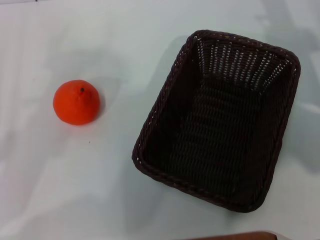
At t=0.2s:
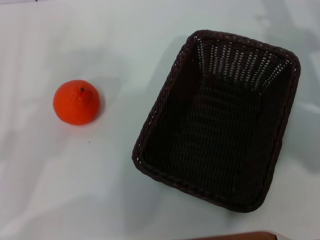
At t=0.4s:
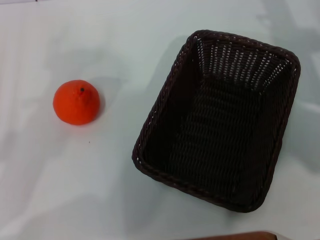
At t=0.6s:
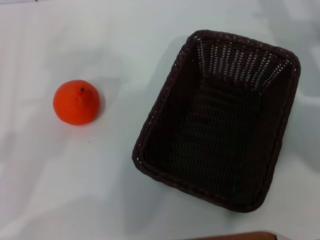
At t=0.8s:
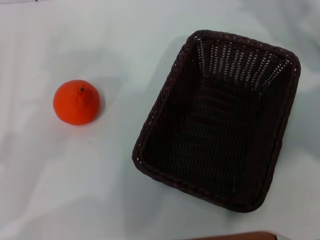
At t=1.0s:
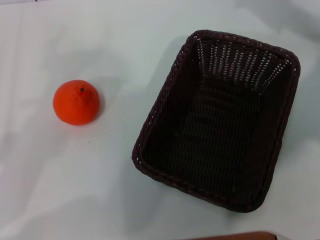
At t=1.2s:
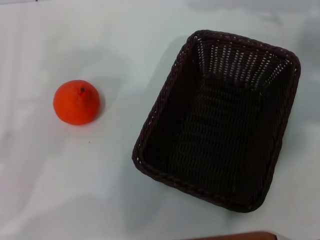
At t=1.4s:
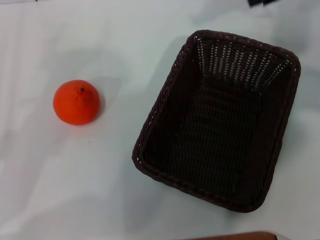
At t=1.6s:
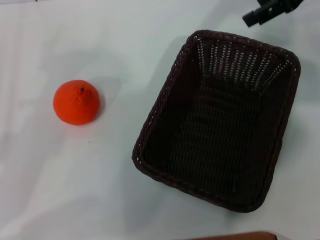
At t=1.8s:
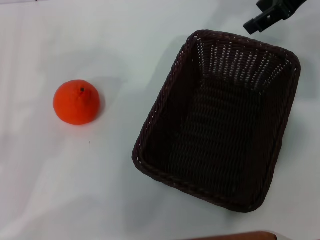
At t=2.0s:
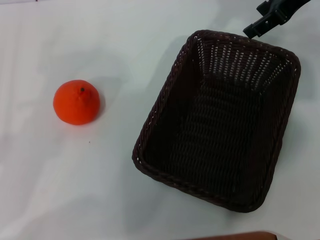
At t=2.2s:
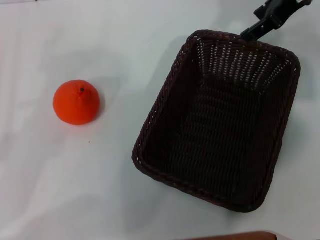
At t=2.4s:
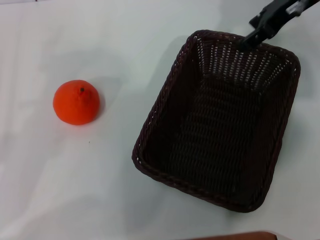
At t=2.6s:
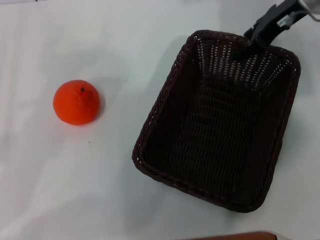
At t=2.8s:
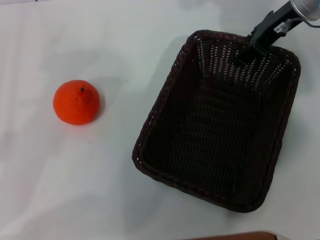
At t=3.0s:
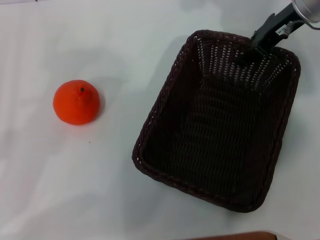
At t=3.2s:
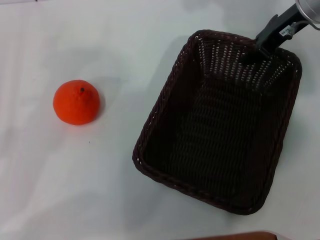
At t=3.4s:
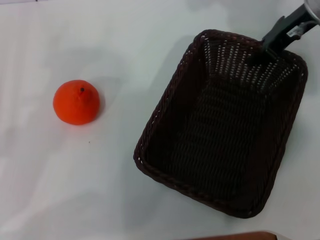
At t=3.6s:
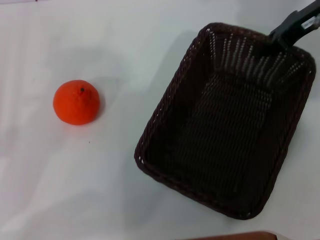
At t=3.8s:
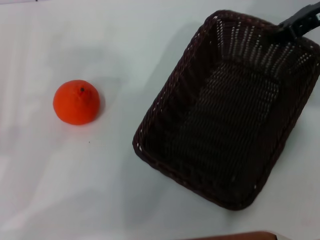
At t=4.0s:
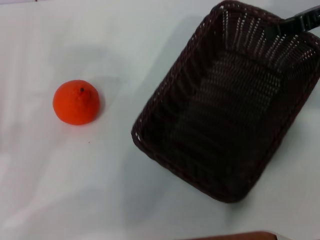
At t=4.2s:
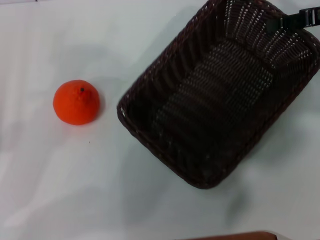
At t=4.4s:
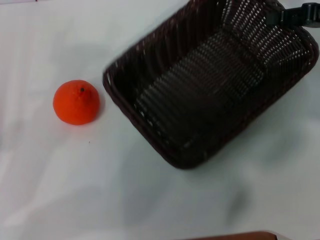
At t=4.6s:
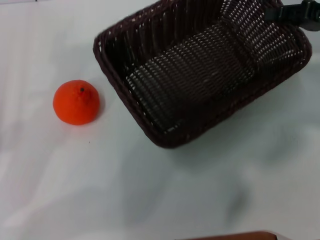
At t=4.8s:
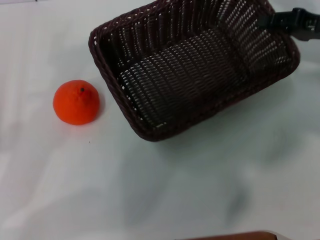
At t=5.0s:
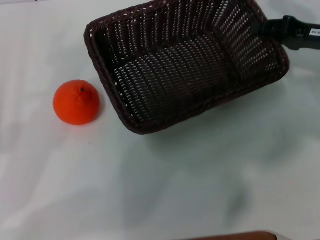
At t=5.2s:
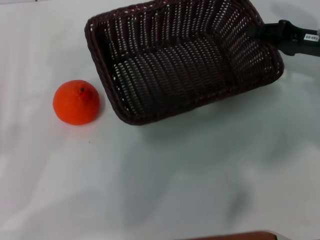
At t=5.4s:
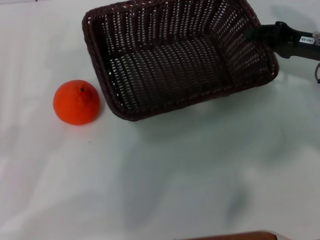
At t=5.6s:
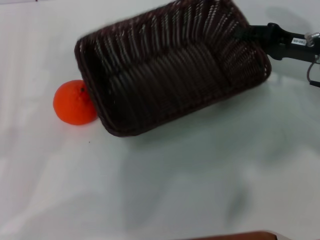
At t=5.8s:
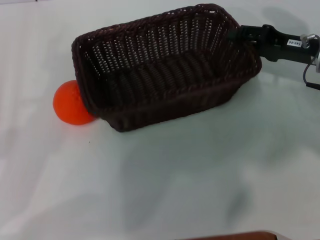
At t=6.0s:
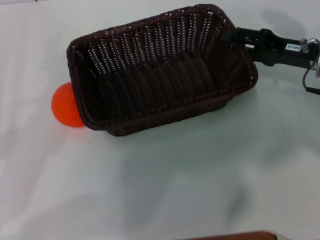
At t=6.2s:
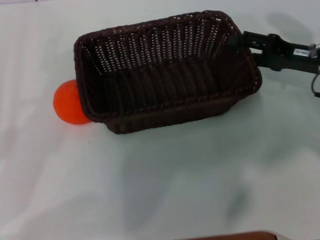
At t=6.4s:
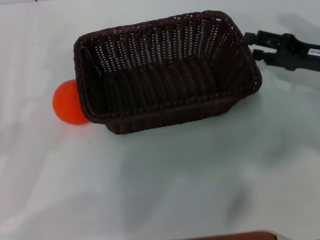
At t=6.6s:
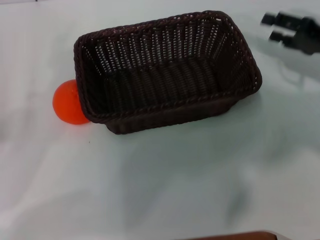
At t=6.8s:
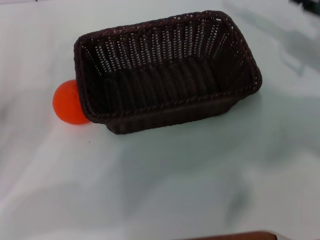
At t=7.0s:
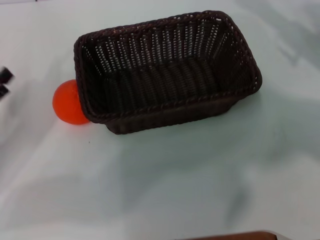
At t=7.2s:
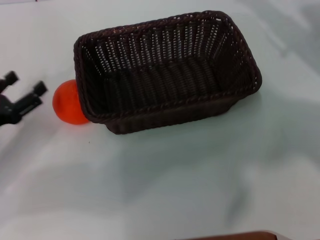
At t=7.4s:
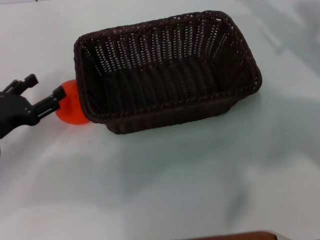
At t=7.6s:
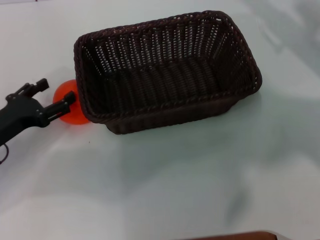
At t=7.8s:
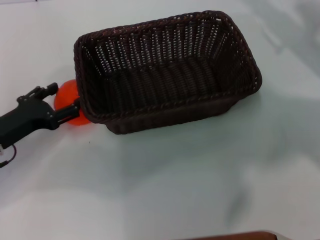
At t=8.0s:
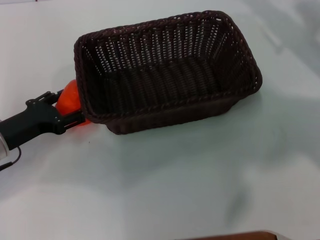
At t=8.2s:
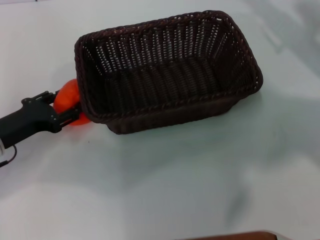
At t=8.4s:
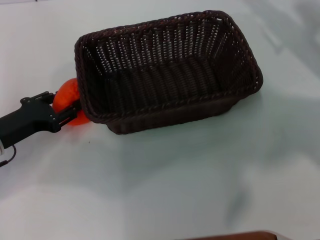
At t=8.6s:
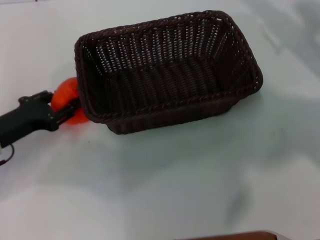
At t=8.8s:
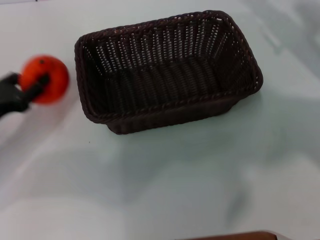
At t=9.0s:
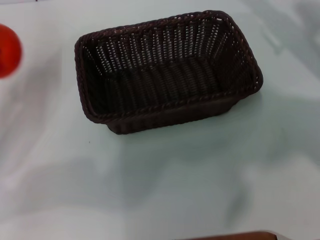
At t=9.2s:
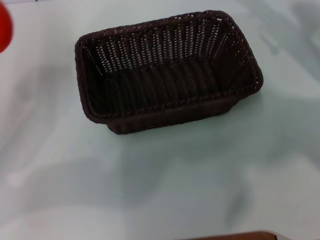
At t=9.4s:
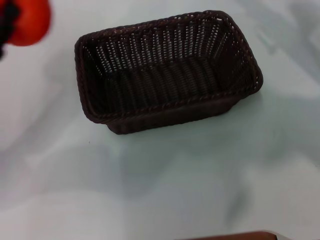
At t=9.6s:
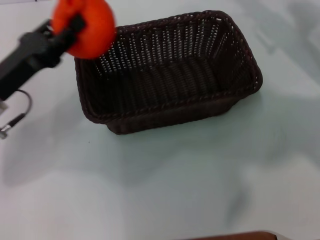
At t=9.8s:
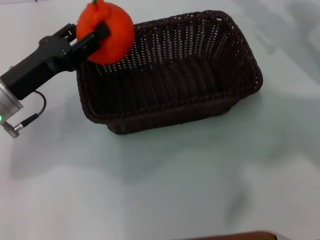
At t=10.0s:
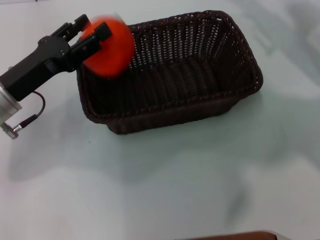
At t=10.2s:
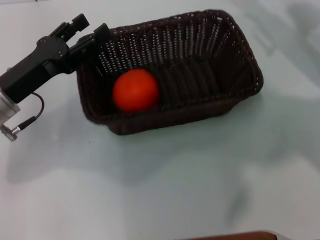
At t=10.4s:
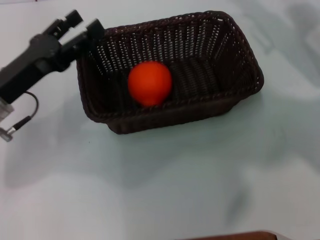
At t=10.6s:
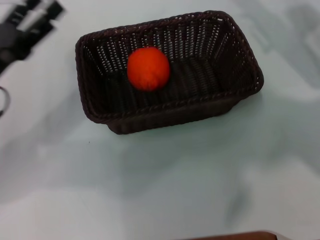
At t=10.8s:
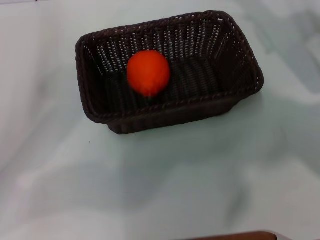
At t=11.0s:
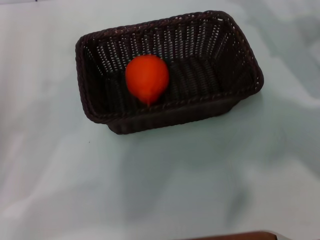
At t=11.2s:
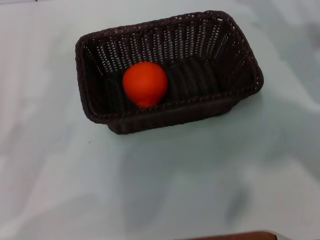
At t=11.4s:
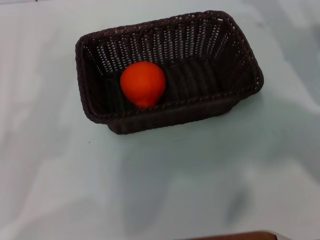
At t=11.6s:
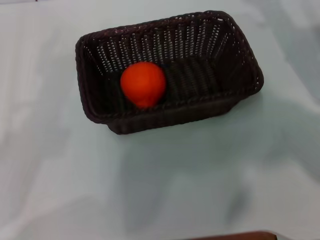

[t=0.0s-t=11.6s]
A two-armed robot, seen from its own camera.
Task of the whole recording: the right gripper pick up the black basket and place it horizontally in the middle of the table, the left gripper pick up the orange and place it into the black basket.
Step, t=0.0s to t=4.0s: Pick up the dark basket with the right gripper.
Step, t=4.4s to t=6.4s: Place the dark basket in the center of view with the right gripper.
Step, t=6.8s to t=8.8s: Pick up the orange with the left gripper.
Step, t=9.0s to t=10.0s: Place the orange into the dark basket with the left gripper.
t=0.0s to t=1.4s: The right gripper goes approximately 15 cm upward.
t=1.4s to t=2.8s: The right gripper goes about 10 cm downward and to the left.
t=2.8s to t=4.4s: The right gripper goes roughly 15 cm to the right and backward, and closes its fingers.
t=4.4s to t=5.8s: The right gripper travels downward and to the left by about 10 cm.
t=5.8s to t=7.2s: The right gripper shifts some 5 cm upward, and opens up; the left gripper is displaced forward by approximately 5 cm.
t=7.2s to t=8.8s: The left gripper closes.
t=8.8s to t=10.2s: The left gripper travels to the right by some 5 cm, and opens.
t=10.2s to t=11.6s: The left gripper moves backward and to the left, about 15 cm.
